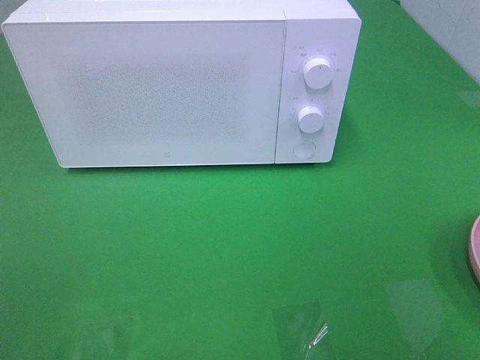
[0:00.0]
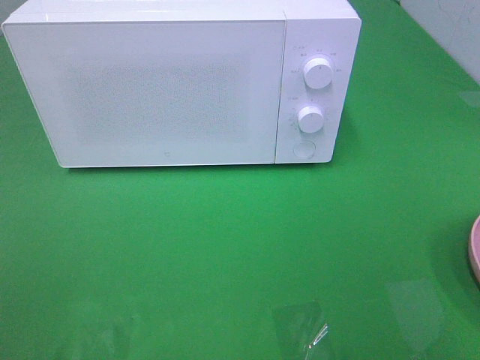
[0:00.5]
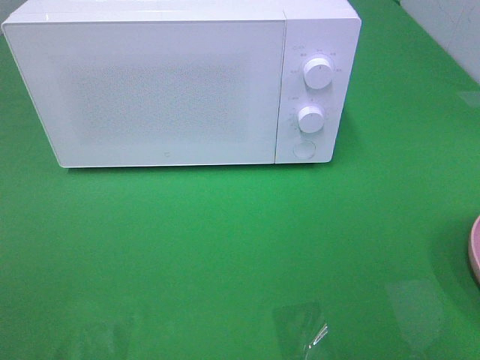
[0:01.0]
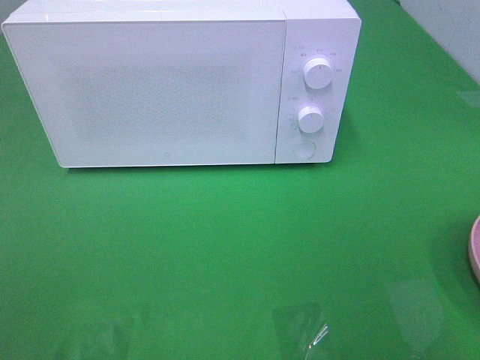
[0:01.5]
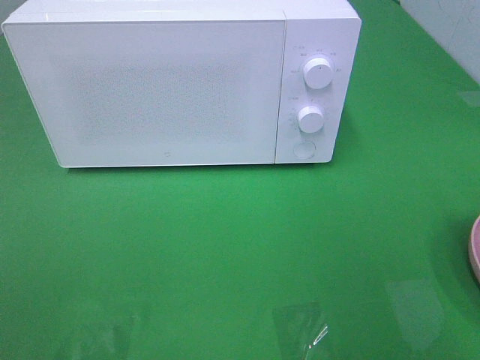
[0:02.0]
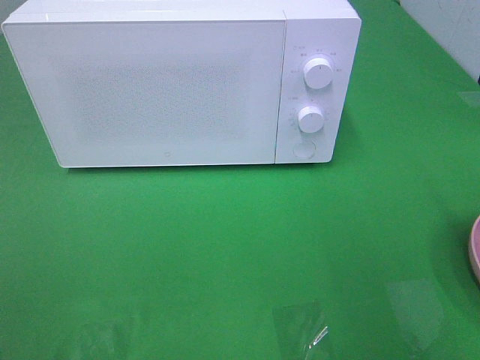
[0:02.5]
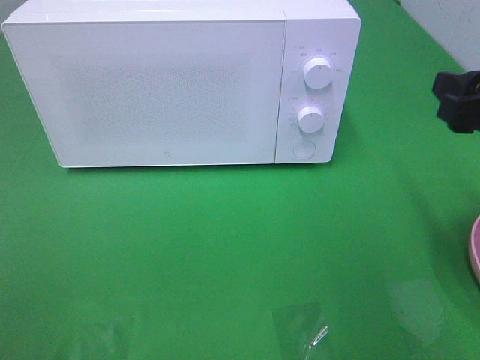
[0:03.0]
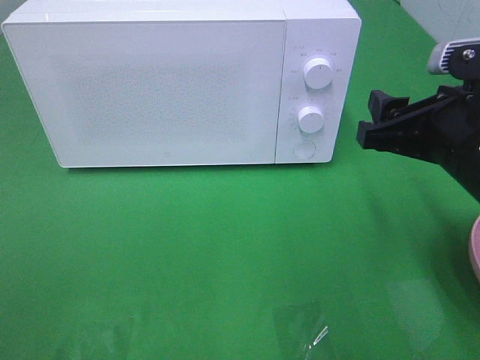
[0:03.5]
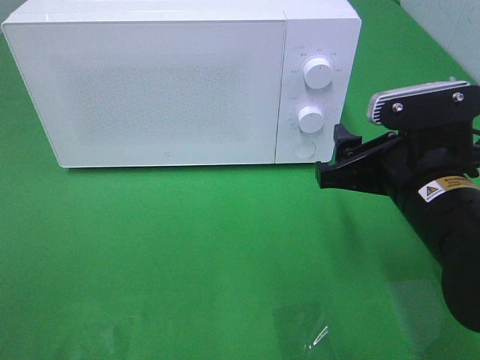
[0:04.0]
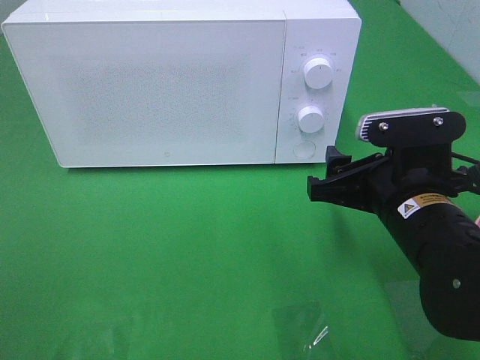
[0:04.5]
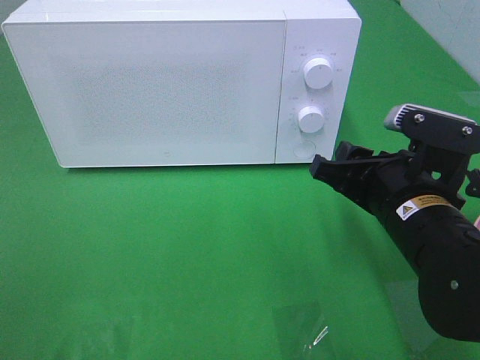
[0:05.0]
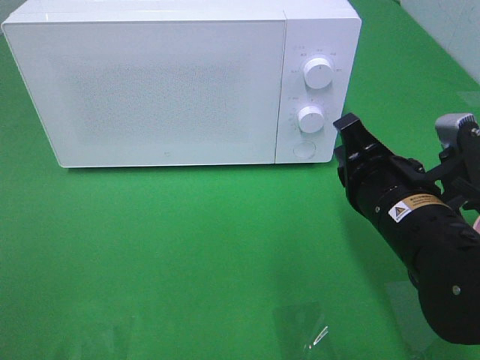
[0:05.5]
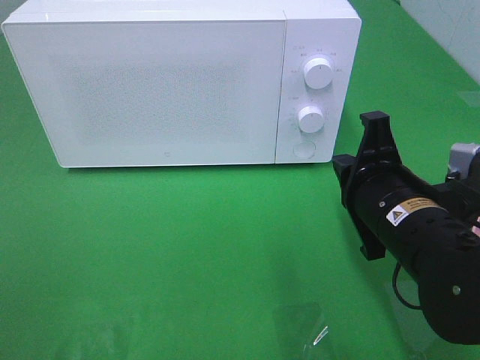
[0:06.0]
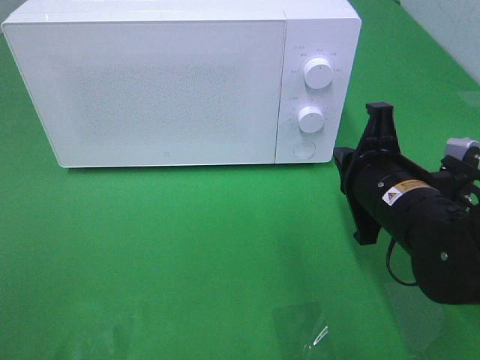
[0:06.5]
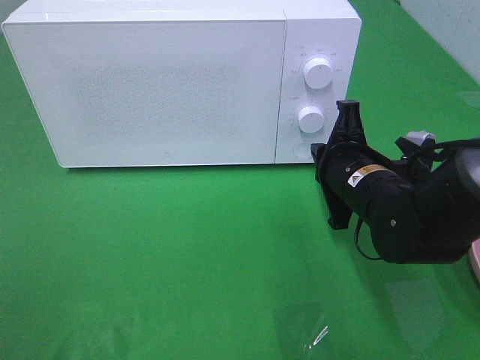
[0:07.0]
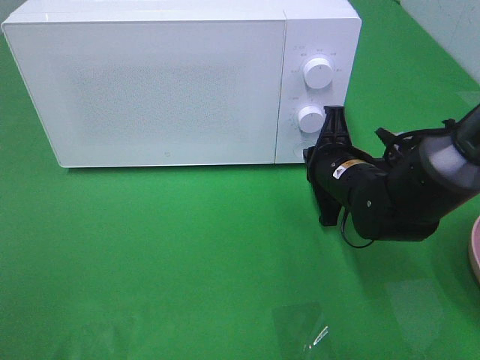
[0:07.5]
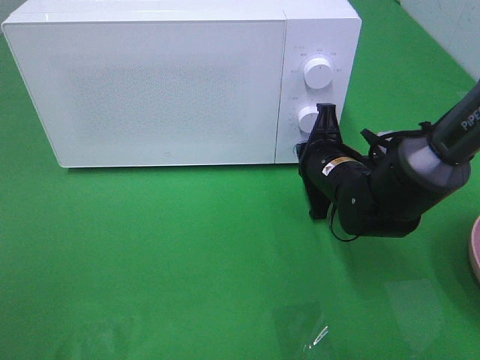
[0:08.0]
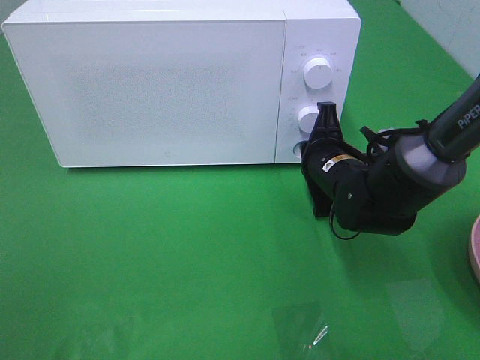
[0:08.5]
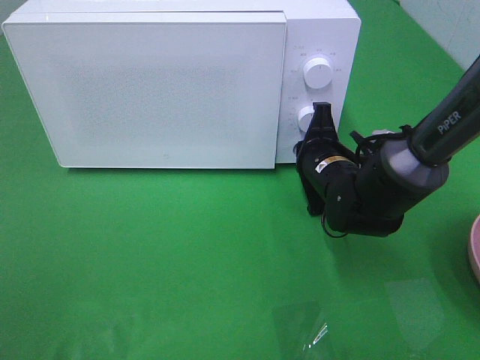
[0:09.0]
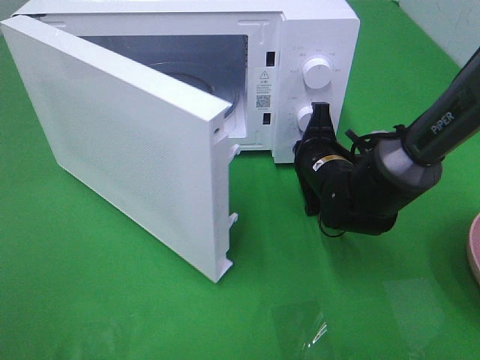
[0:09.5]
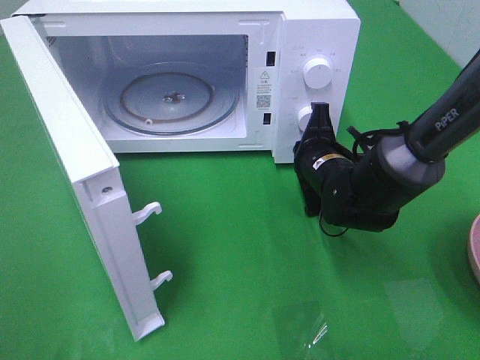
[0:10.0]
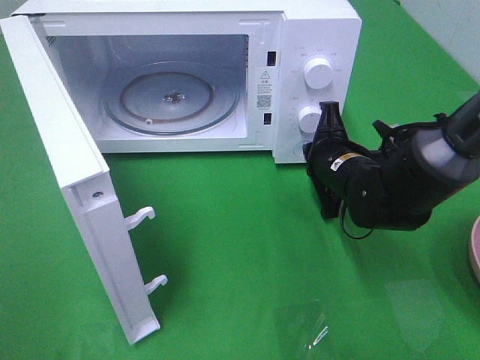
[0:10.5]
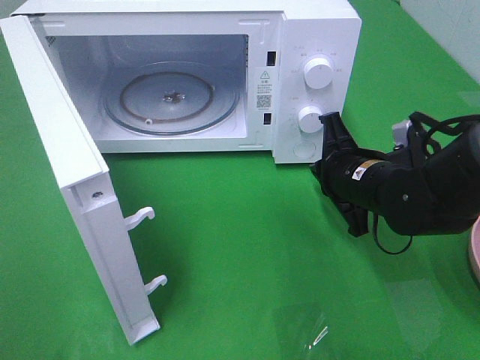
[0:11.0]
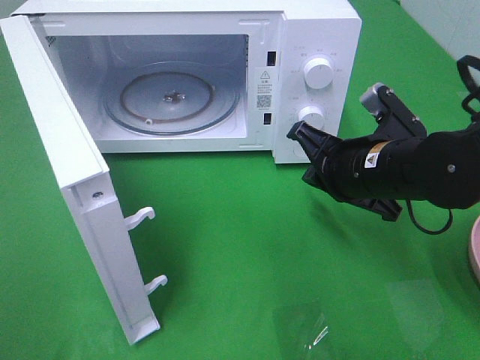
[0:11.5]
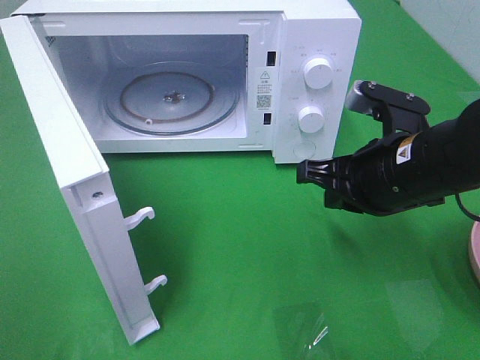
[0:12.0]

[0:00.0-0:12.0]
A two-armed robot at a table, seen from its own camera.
Task of the whole recording: Heat the burger.
Step, 0.0 to 10.5 s: Right hand: press the switch.
2.0 to 4.0 s: The right gripper heads downward, to the left and forward, covering about 20 cm.
4.0 to 6.0 s: The right gripper closes its fingers.
6.0 to 8.0 s: The right gripper moves forward and downward, about 15 cm.
10.0 to 12.0 s: The right gripper goes about 15 cm backward and upward.

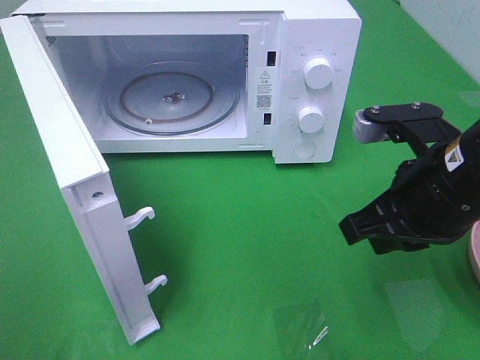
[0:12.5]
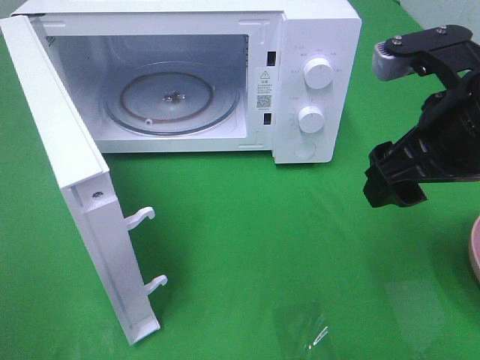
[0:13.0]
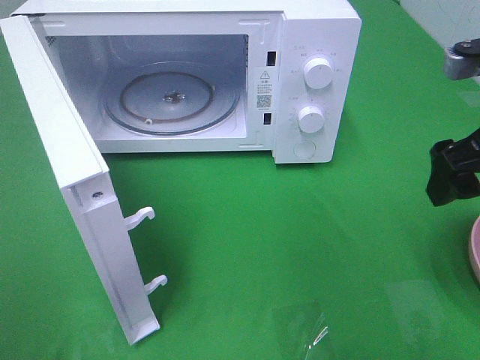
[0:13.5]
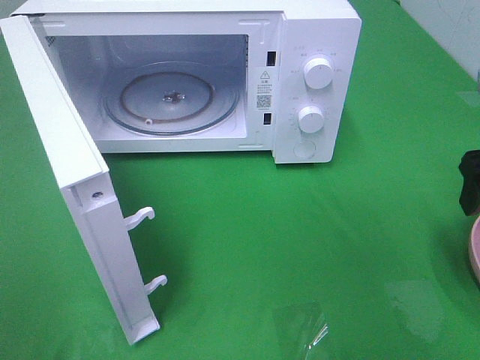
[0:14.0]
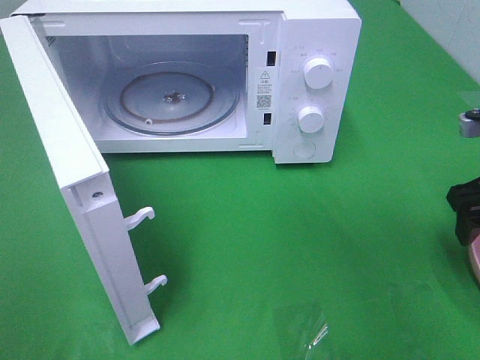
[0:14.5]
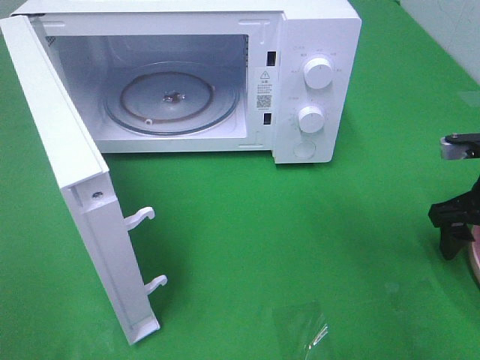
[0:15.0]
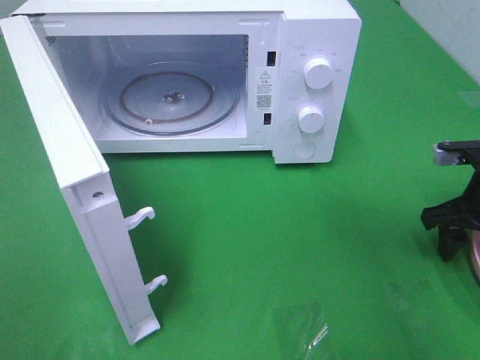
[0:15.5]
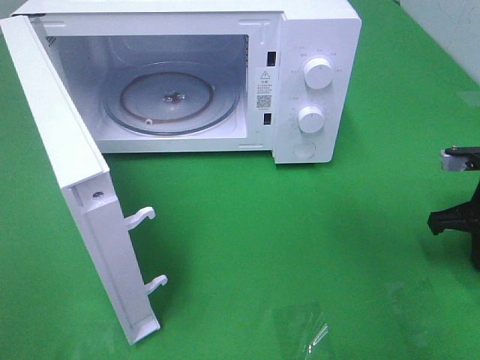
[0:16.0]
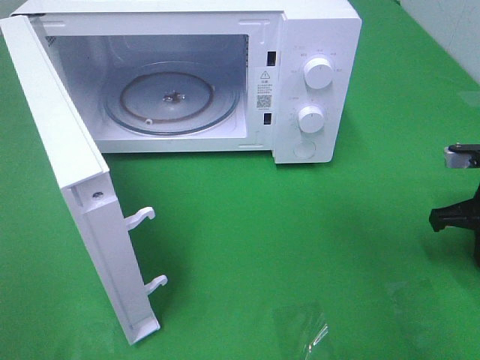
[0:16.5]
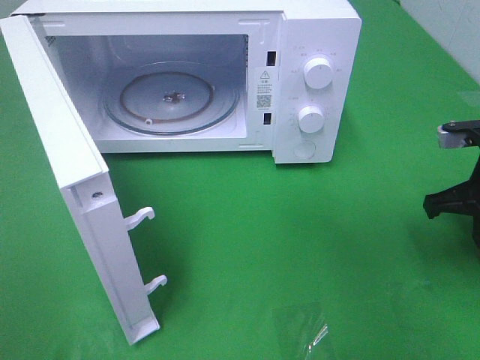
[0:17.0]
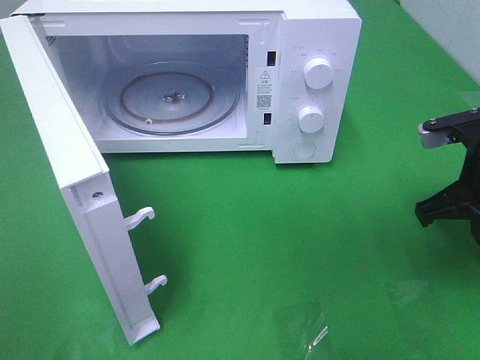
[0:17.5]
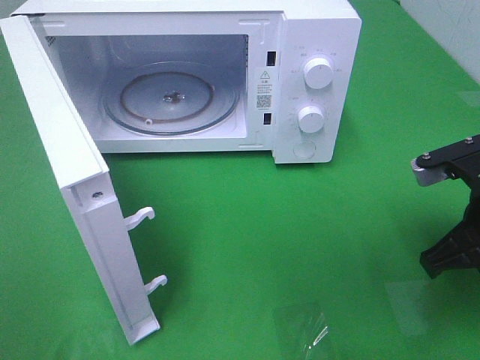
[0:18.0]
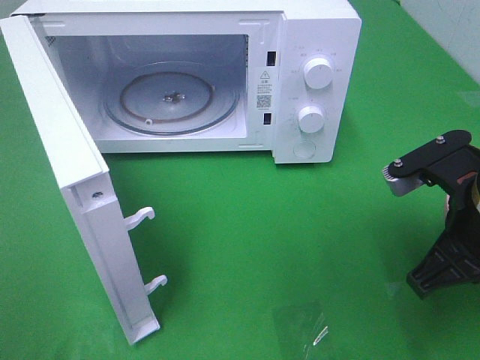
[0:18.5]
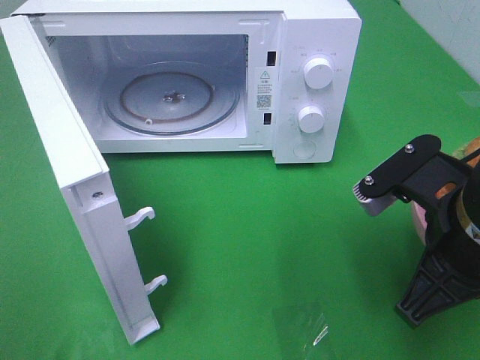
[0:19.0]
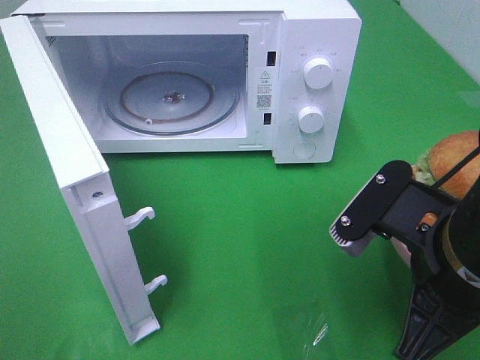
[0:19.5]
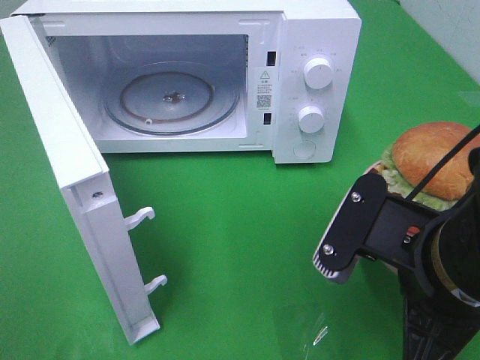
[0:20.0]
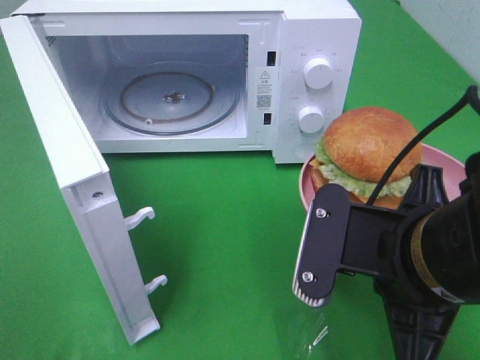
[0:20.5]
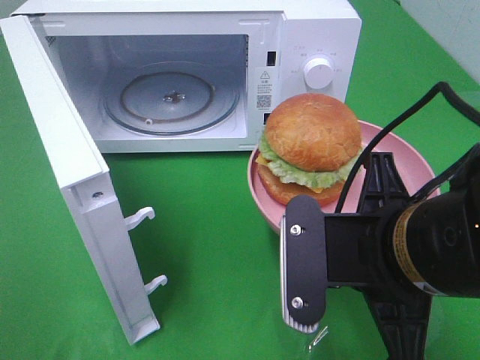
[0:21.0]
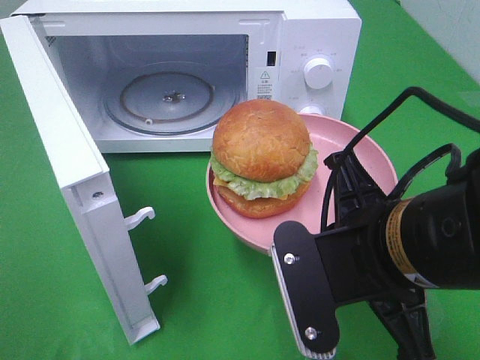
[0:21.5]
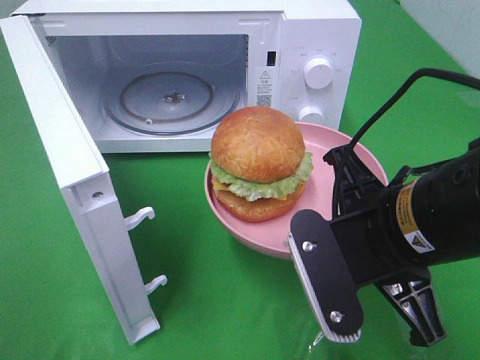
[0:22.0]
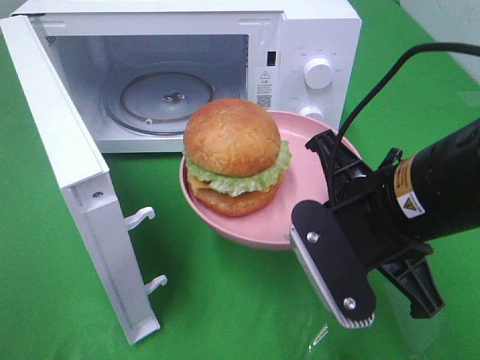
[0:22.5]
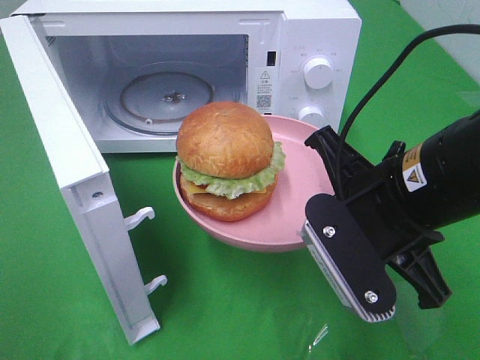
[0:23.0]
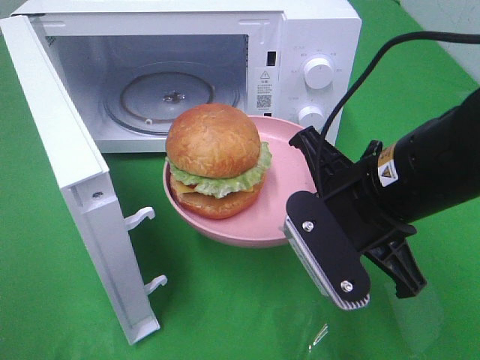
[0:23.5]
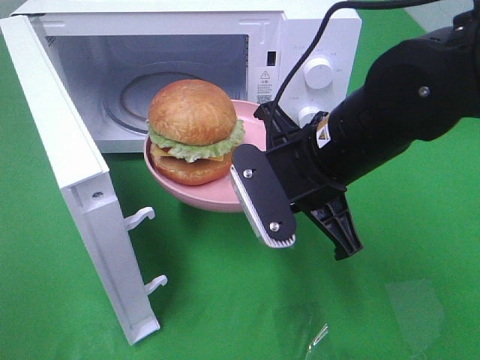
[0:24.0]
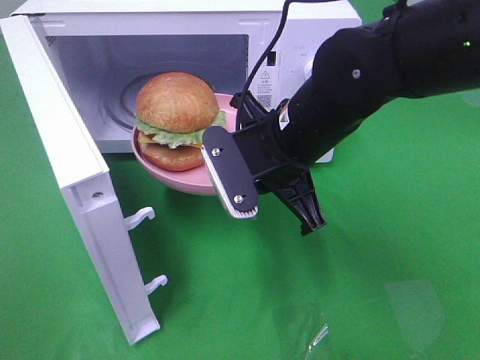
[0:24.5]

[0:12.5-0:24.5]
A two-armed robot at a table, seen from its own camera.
Task of the whole recording: Heat the burger.
Step, 12.5 to 16.5 s: Right hand: grab the plate with the hamburger.
12.5 to 14.5 s: The right gripper travels to the right and forward by approximately 15 cm, and opens its fingers.
14.5 to 16.5 s: The right gripper is displaced downward by about 5 cm, and closes its fingers.
16.5 to 18.5 s: The right gripper is displaced to the left, backward and upward by about 15 cm.
18.5 to 20.5 s: The right gripper is displaced to the left and backward by roughly 10 cm.
22.5 to 24.5 s: The right gripper moves forward and to the left, approximately 10 cm.

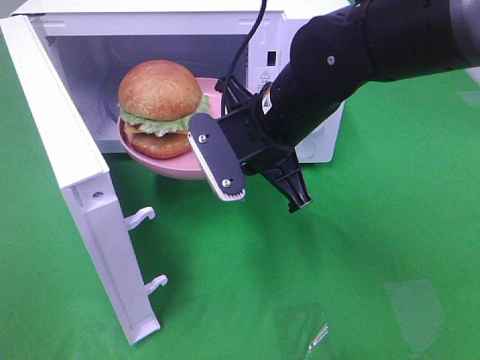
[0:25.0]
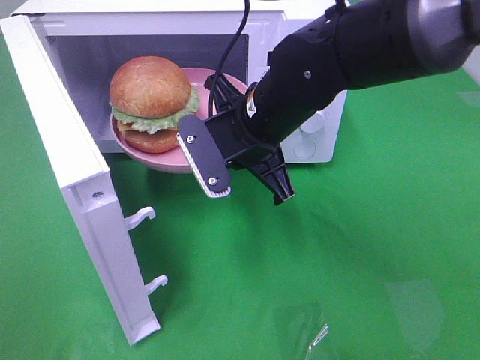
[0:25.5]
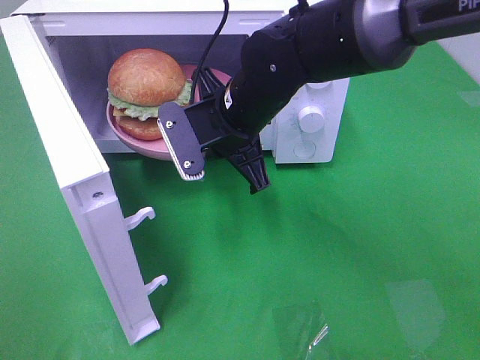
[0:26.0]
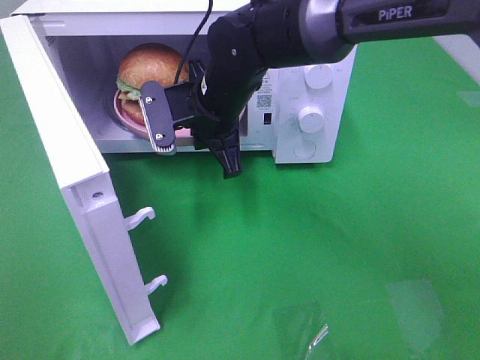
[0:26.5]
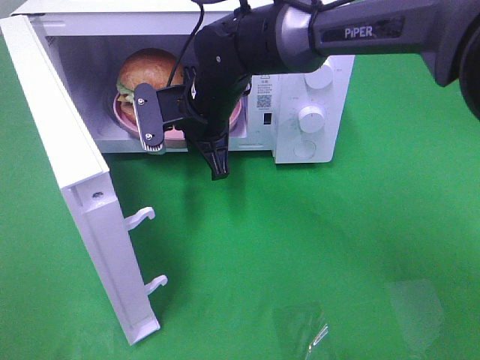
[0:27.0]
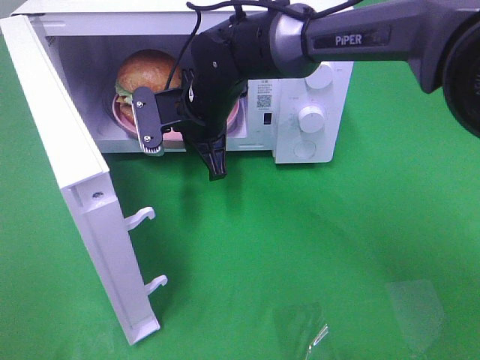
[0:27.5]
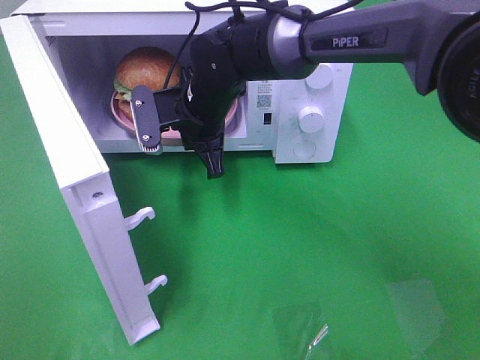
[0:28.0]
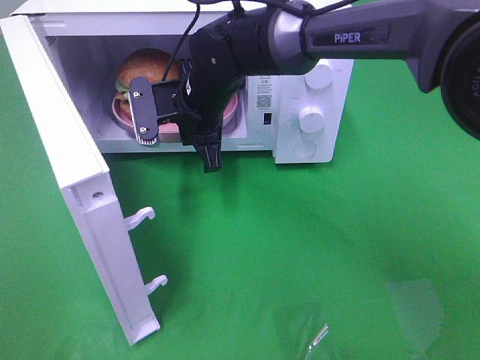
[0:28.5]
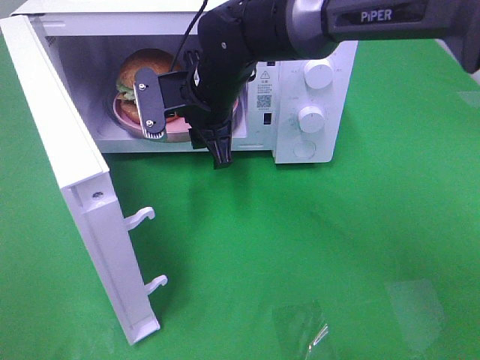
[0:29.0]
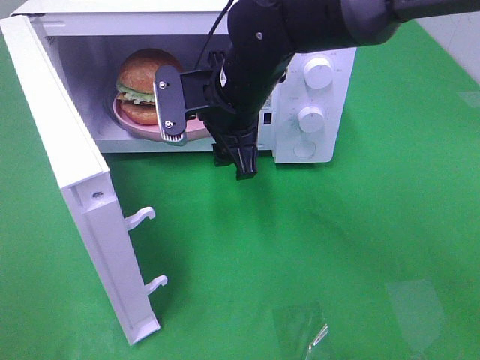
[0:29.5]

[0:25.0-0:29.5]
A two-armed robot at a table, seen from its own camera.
Task of the whole recording: Heat the burger.
Step, 25.0 to 28.5 s: Right hand: place the plate in the microwave.
25.0 to 27.0 s: The right gripper goes approximately 10 cm forward and to the left.
27.0 to 29.5 s: The right gripper changes place by some 5 cm, and opens its fingers.
